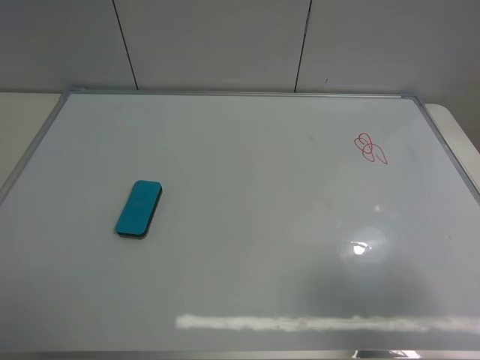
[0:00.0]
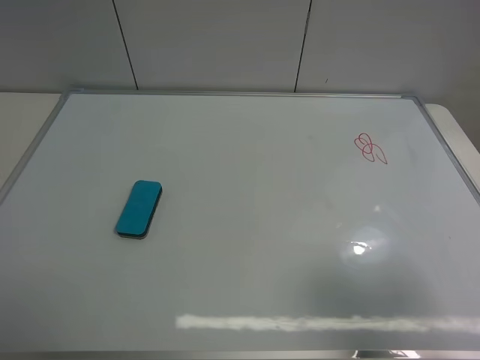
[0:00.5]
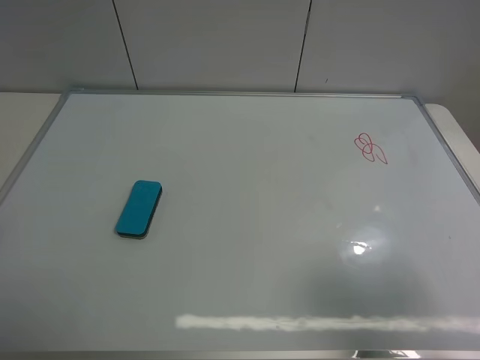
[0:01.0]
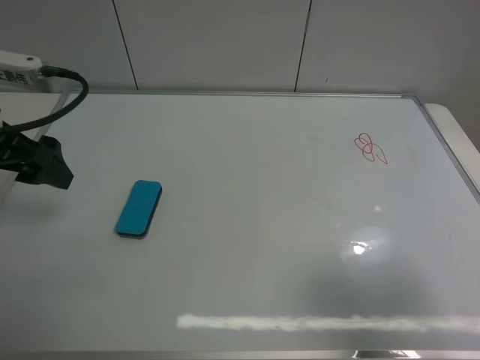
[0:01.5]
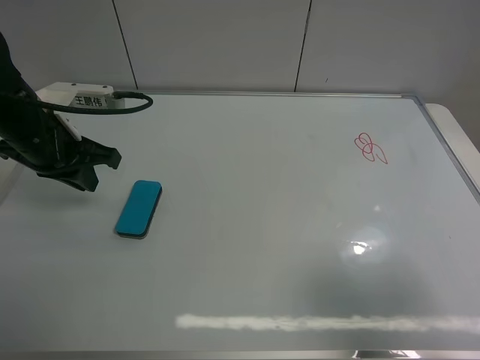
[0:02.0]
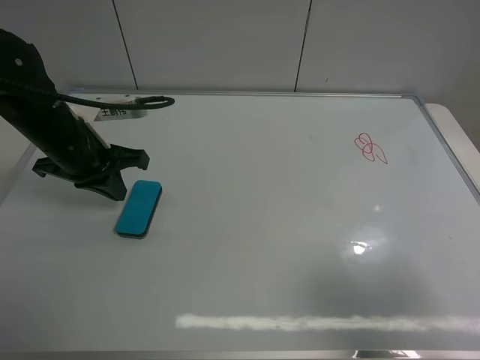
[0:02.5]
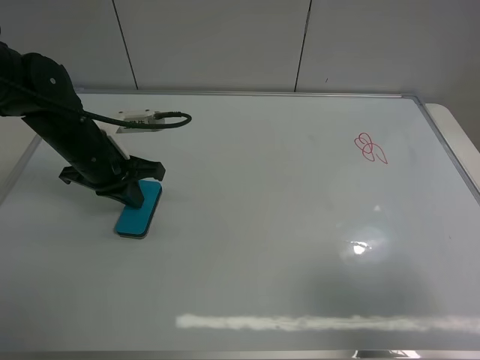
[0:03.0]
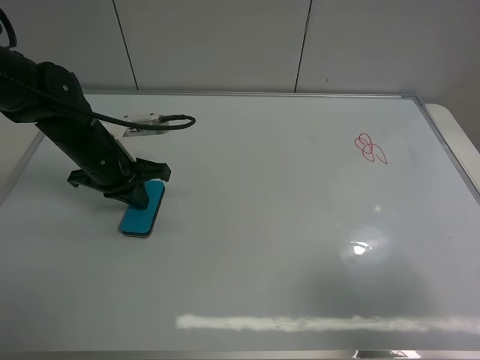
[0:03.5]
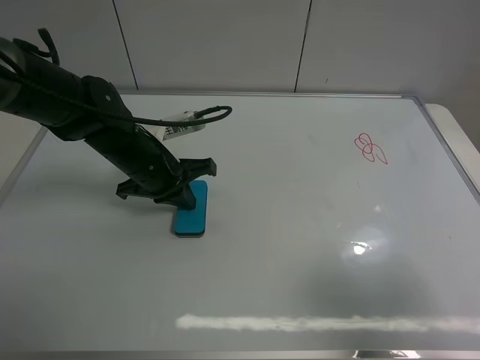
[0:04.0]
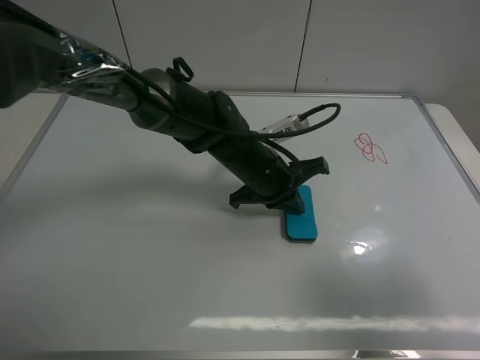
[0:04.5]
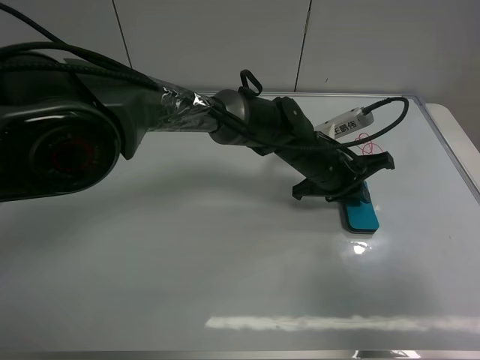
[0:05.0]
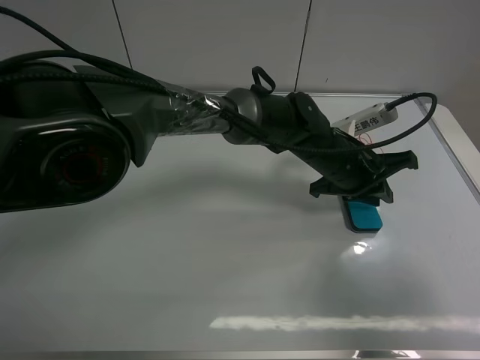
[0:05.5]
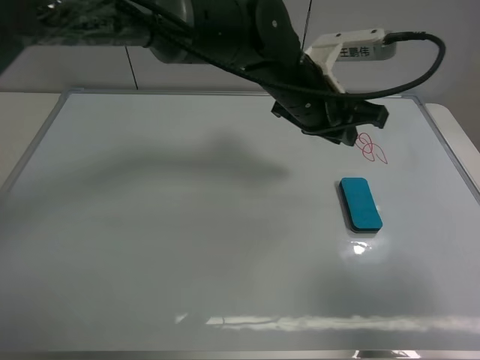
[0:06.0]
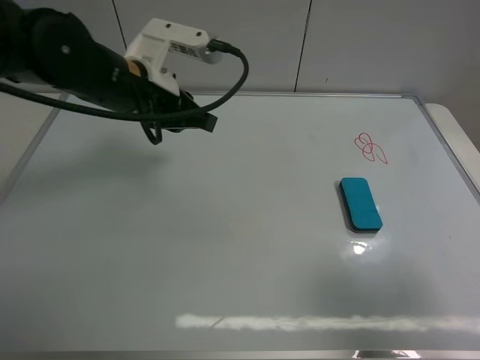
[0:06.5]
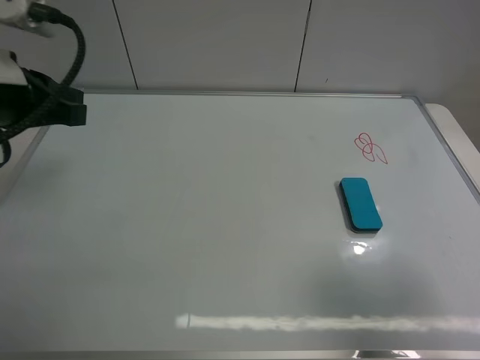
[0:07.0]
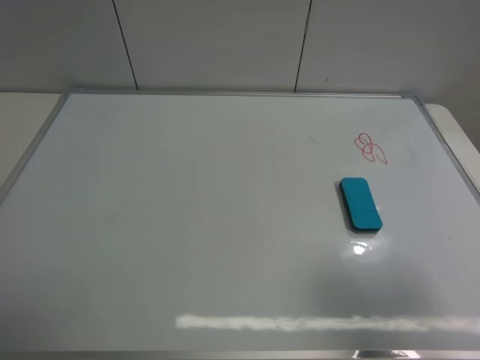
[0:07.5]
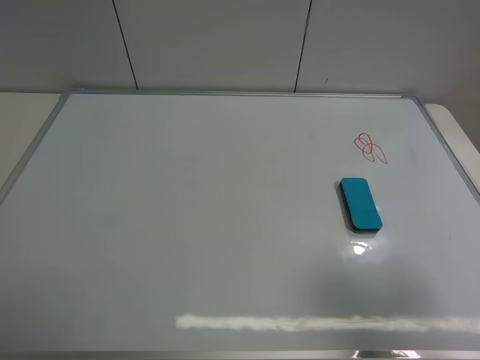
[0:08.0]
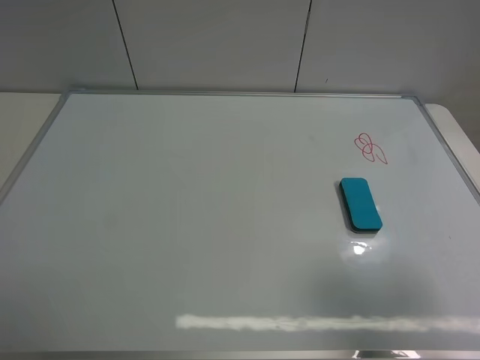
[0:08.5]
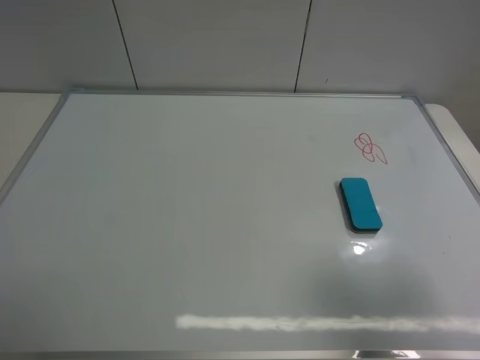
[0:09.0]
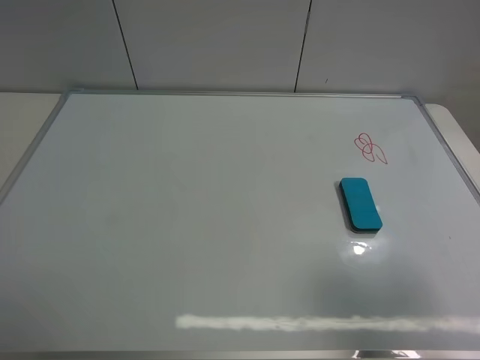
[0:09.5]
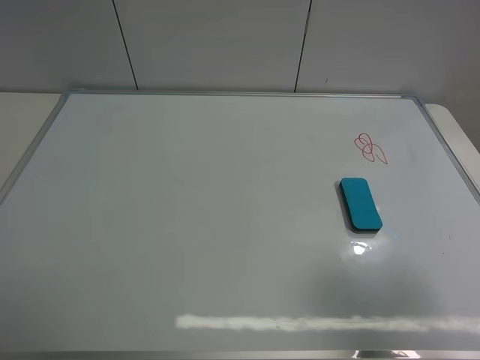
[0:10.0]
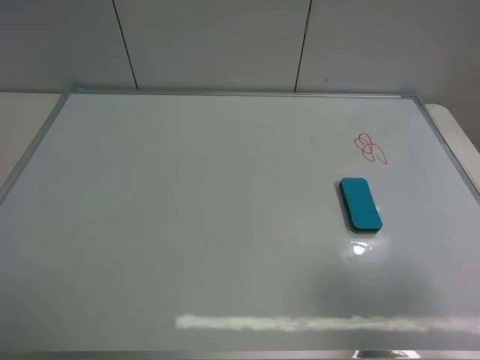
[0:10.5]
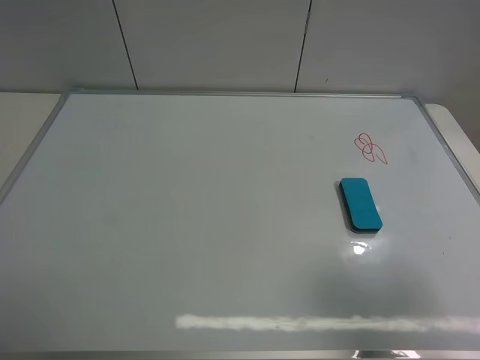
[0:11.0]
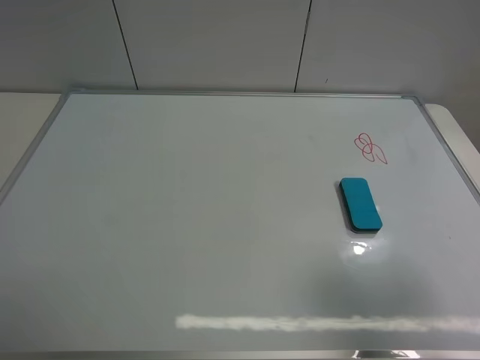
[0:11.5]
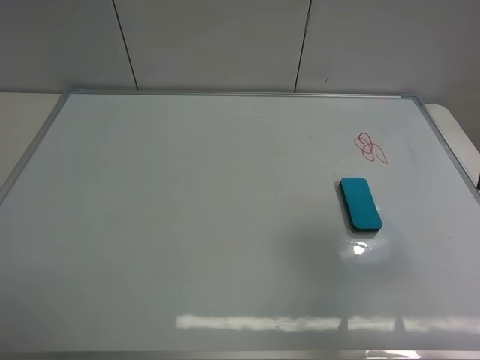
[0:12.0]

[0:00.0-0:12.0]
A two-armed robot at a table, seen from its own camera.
Task of the whole recording: use the left gripper to place the eraser in the right, use the right gripper to pick up the eraser, wipe the notes on the whiteboard clean, and then put it down.
Step, 0:00.0 to 0:05.5: Move the board eraser to the right of the whiteboard with left gripper.
0:00.0 to 0:02.0: The left gripper heads forward, covering roughly 25 cm, and closes its fingers.
0:02.0 to 0:04.0: The left gripper heads to the right and downward, covering some 15 cm.
0:04.0 to 0:06.0: The left gripper travels to the right and upward by approximately 20 cm.
0:06.0 to 0:08.0: The left gripper moves to the left and backward, about 50 cm, and opens up.
0:10.0 to 0:12.0: The right gripper heads forward, covering about 10 cm.

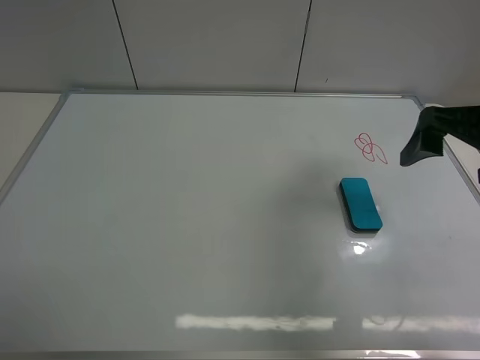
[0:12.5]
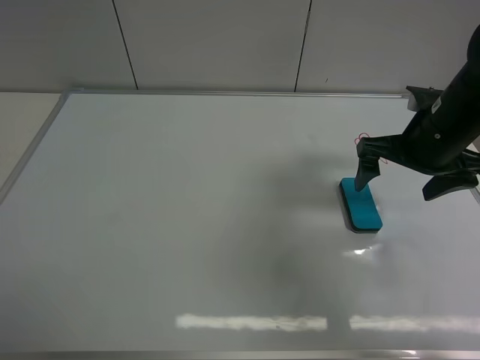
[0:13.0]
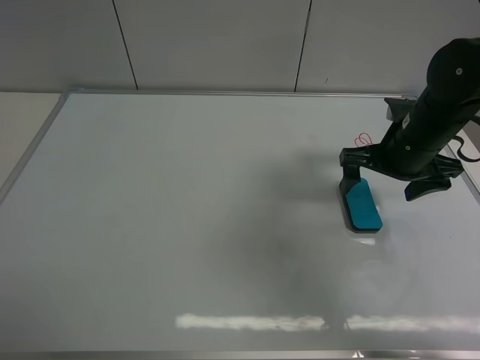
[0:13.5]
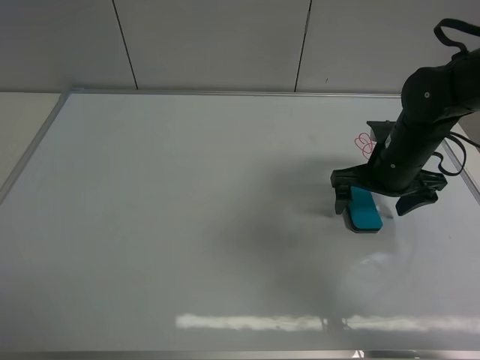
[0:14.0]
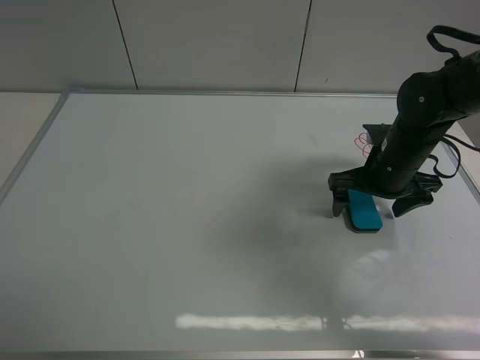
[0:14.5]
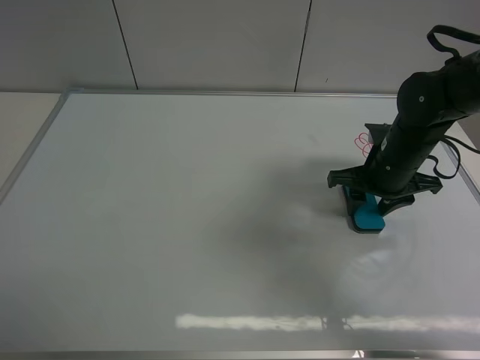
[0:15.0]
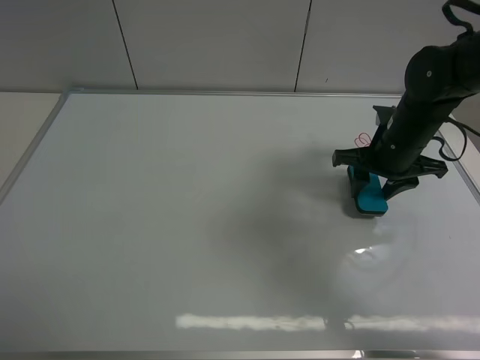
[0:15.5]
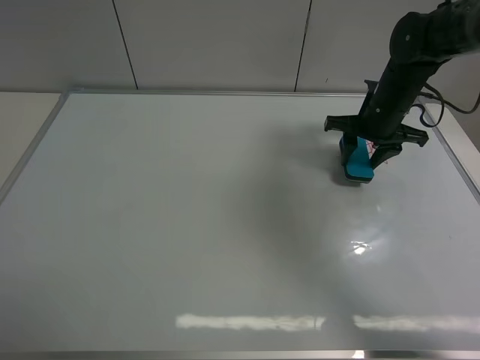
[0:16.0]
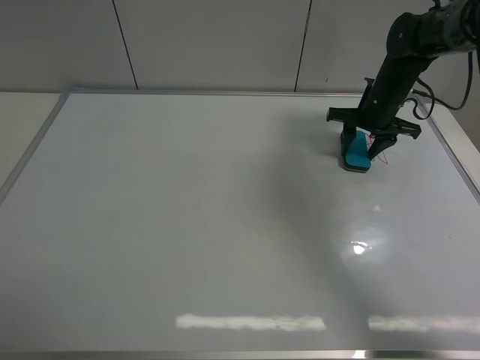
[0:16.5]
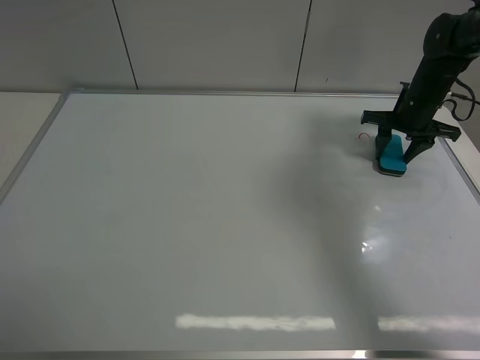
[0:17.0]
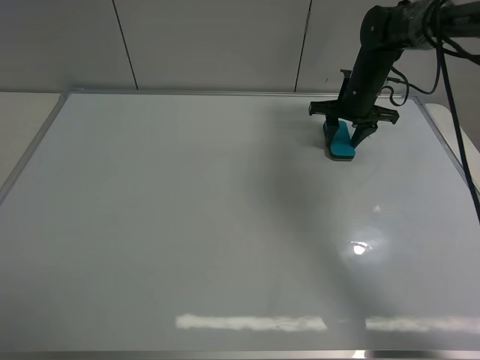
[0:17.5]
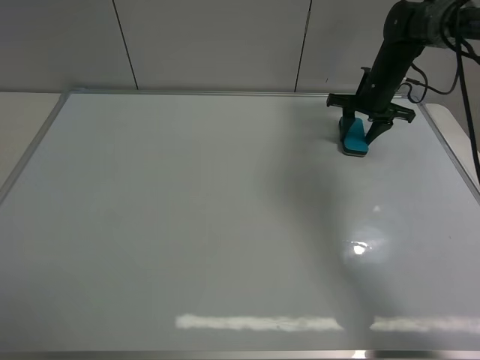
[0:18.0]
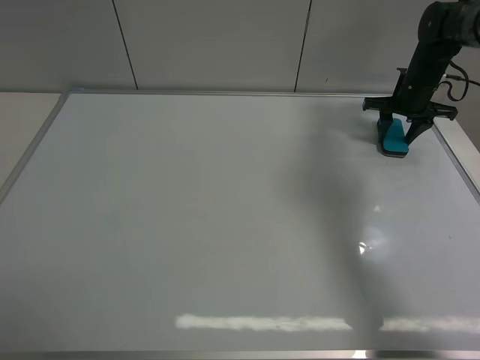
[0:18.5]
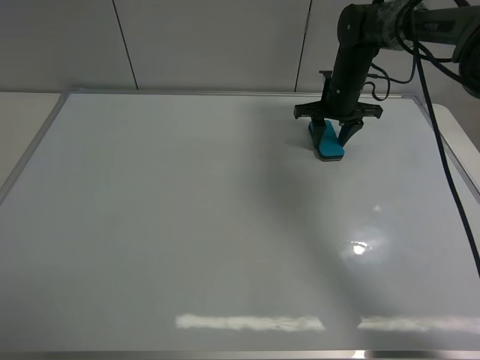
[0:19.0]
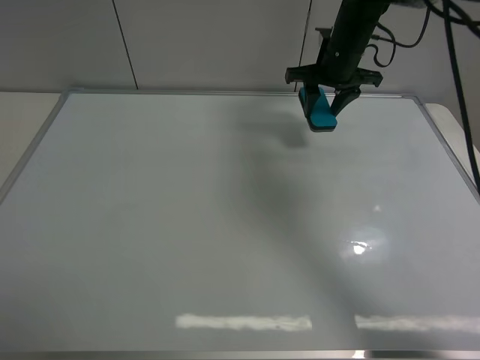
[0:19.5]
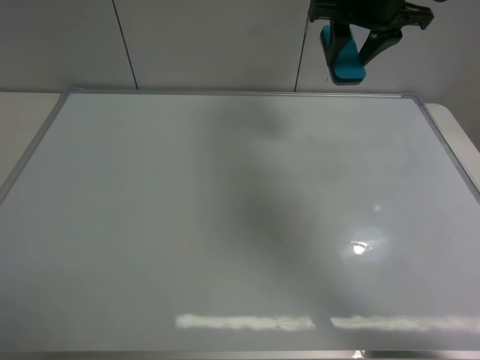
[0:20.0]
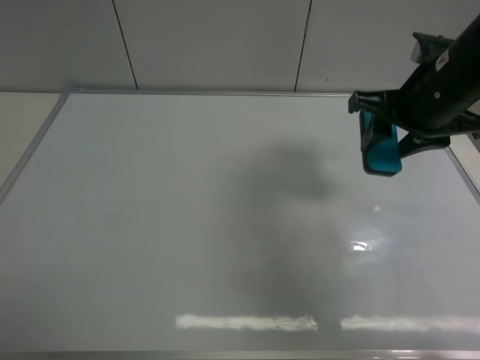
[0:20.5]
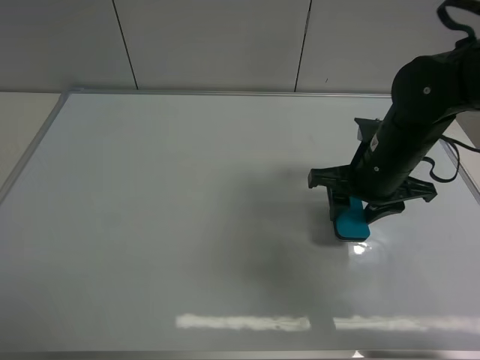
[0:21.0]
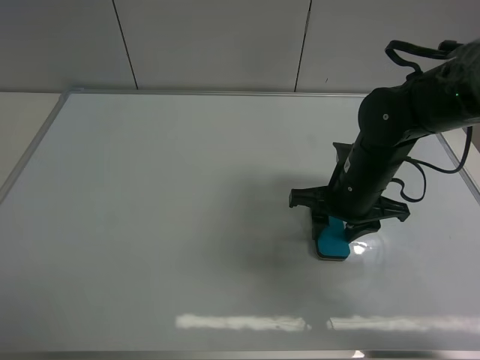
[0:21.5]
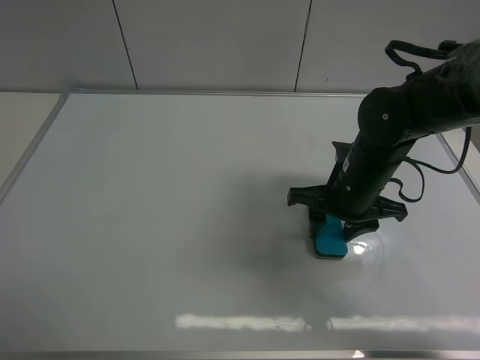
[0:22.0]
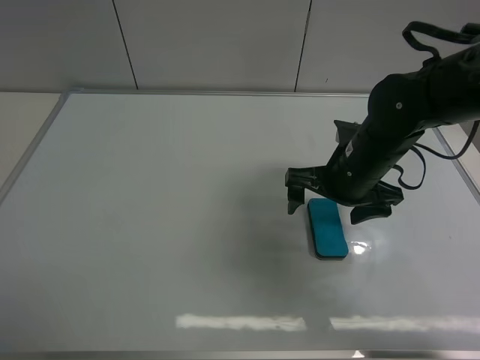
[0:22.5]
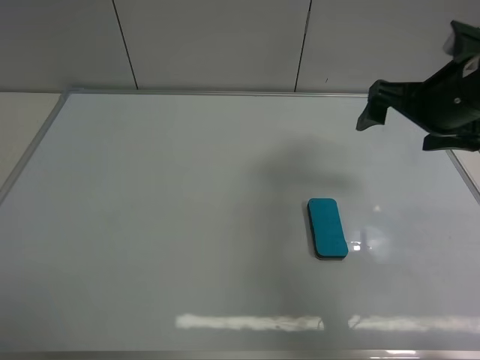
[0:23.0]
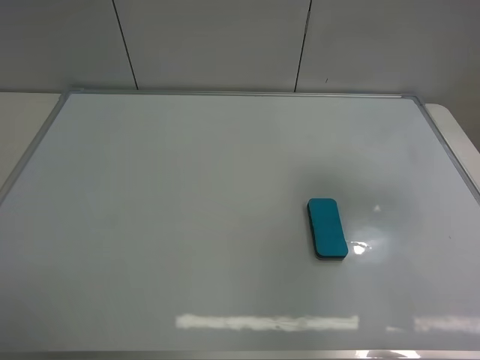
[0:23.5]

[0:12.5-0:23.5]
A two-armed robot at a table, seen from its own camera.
Task of the whole recording: use the left gripper to place the eraser in the right, use the right gripper to pick up the eraser, wipe the notes on the whiteboard clean, and then put it down.
Step, 0:12.5 to 0:15.5: Pick up the board eraser with right gripper.
Step, 0:16.0 to 0:19.0: Wipe off the writing on the board with right gripper.
Step, 0:19.5 to 0:22.0: Place the board eraser on the right side of board with right gripper.
0:12.5 to 0:14.5: The right gripper moves downward and forward, approximately 15 cm.
0:14.5 to 0:16.0: The right gripper is displaced forward by about 10 cm, and closes.
0:16.0 to 0:18.0: The right gripper moves left and right over about 10 cm, changing direction 2 times.
0:18.0 to 0:20.0: The right gripper travels upward, to the left and backward by about 25 cm.
0:20.0 to 0:21.5: The right gripper goes some 25 cm downward and backward.
0:21.5 to 0:23.5: The right gripper goes roughly 30 cm upward, to the right and backward, and opens.

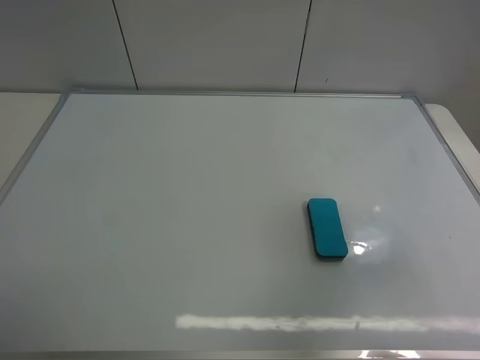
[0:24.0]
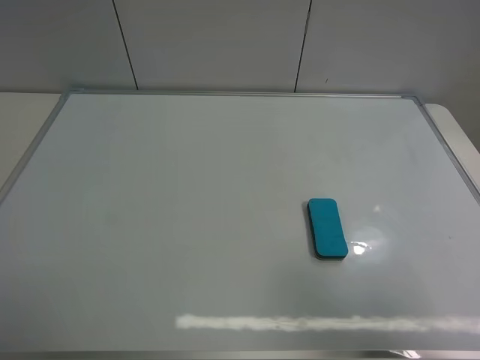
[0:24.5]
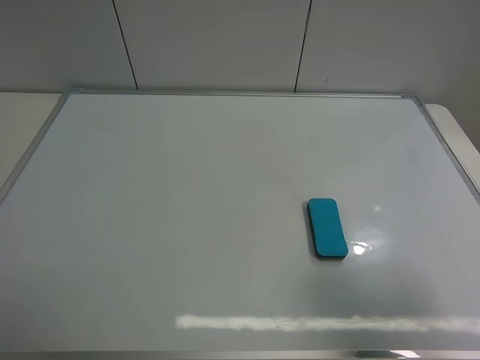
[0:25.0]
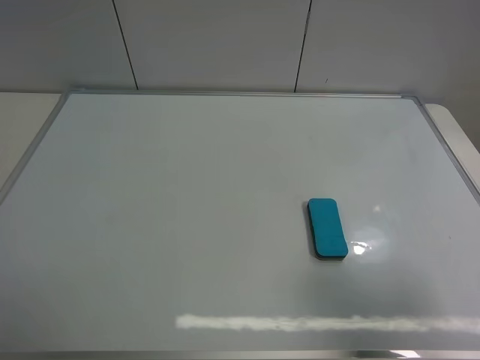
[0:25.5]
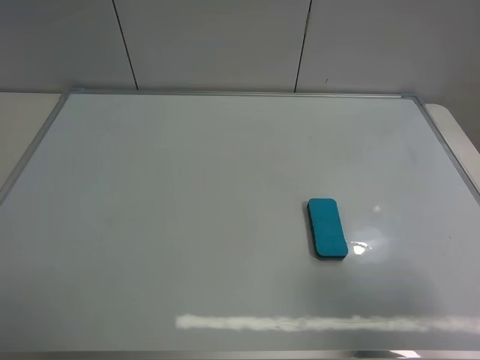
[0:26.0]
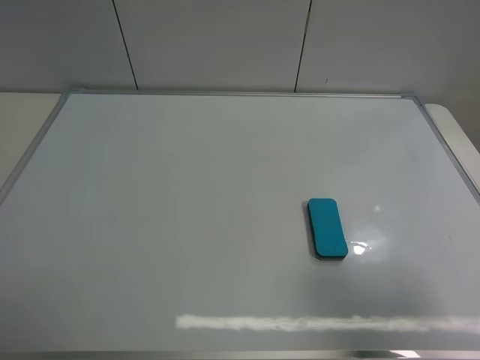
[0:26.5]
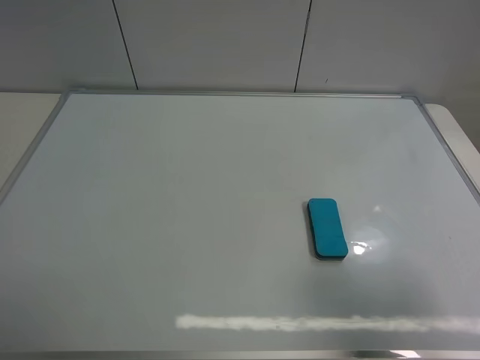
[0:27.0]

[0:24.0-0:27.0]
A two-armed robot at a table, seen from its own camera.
Task of the whole recording: use the left gripper to place the eraser in the right, use the right gripper to pick up the eraser, wipe the notes on the whiteboard clean, and then put it down.
0:24.0 to 0:25.5: The right gripper heads downward, covering roughly 10 cm.
0:25.5 to 0:27.0: Neither gripper changes place.
